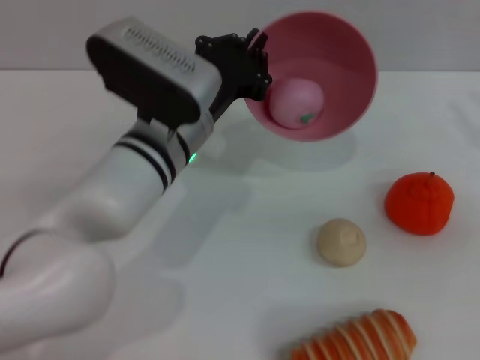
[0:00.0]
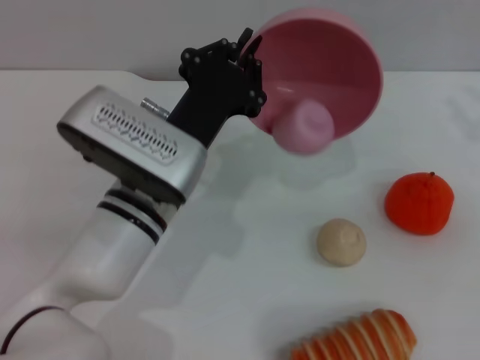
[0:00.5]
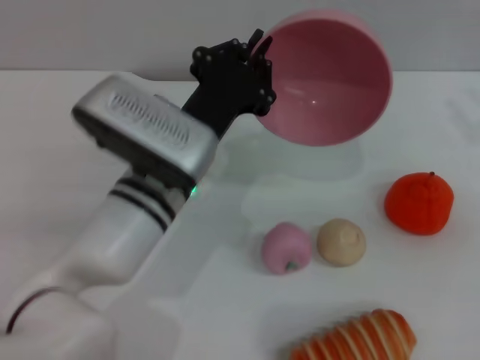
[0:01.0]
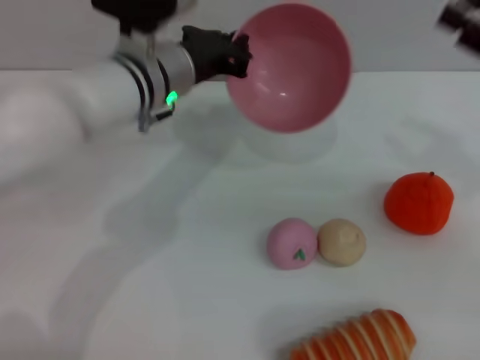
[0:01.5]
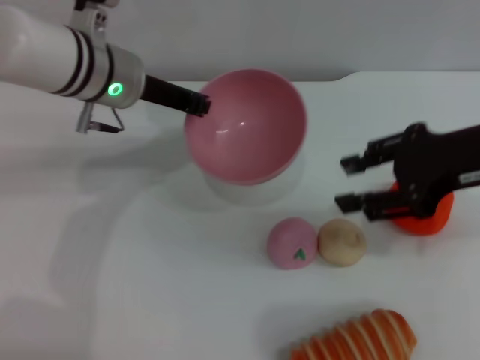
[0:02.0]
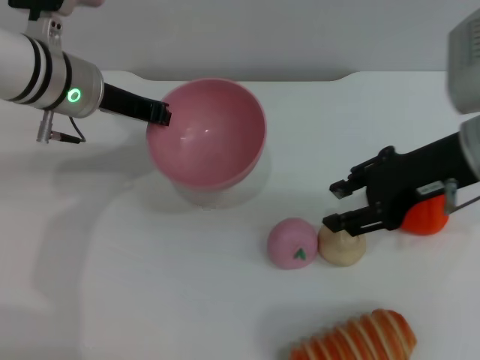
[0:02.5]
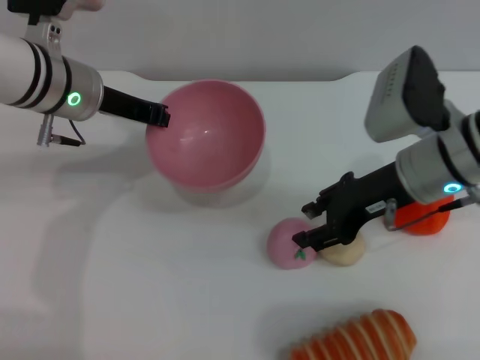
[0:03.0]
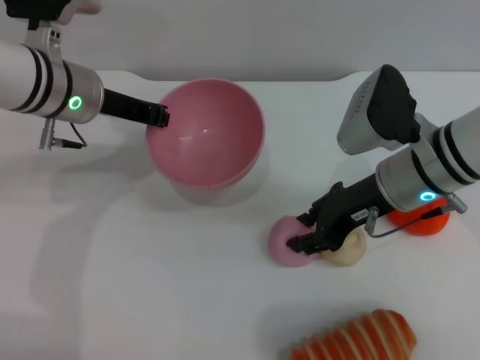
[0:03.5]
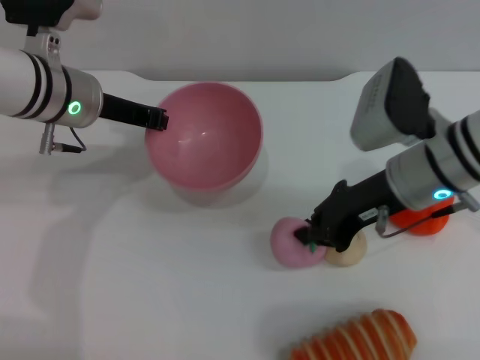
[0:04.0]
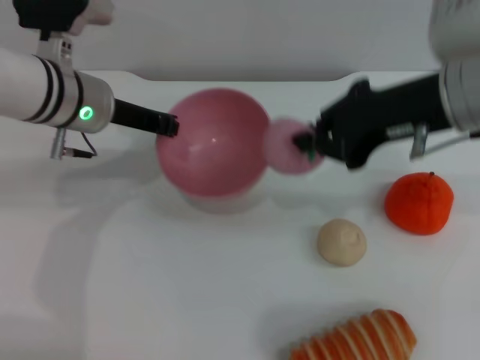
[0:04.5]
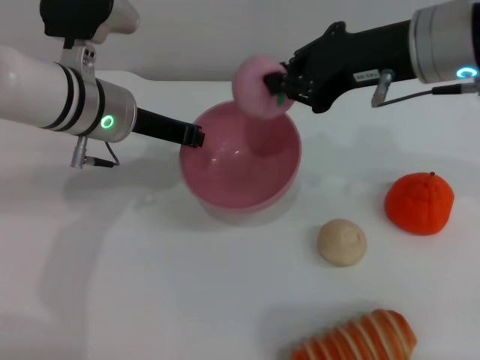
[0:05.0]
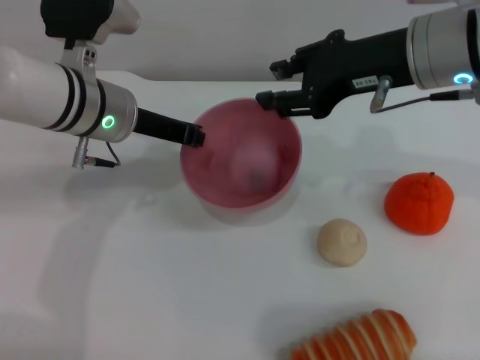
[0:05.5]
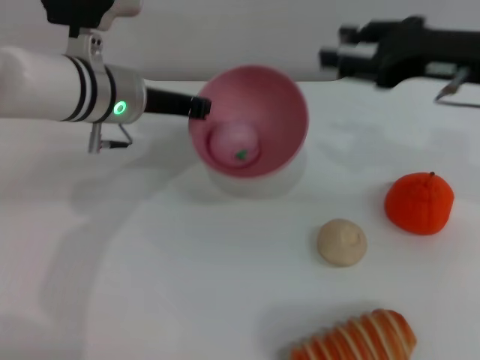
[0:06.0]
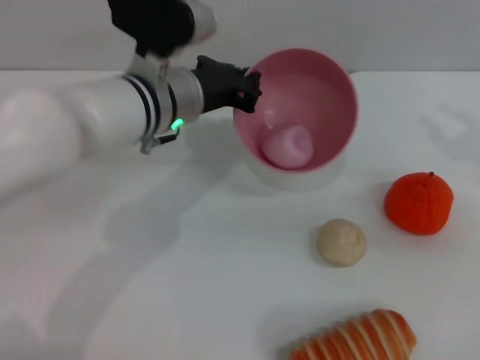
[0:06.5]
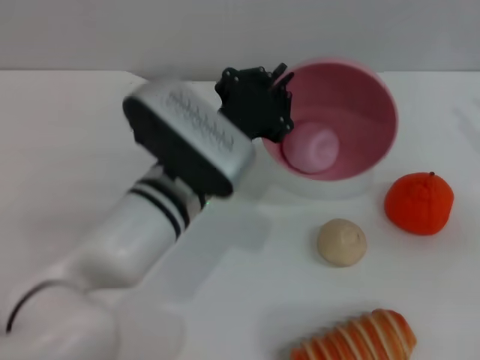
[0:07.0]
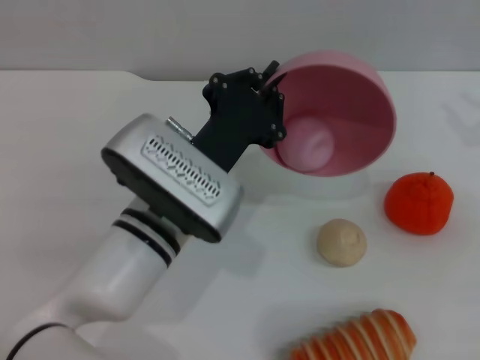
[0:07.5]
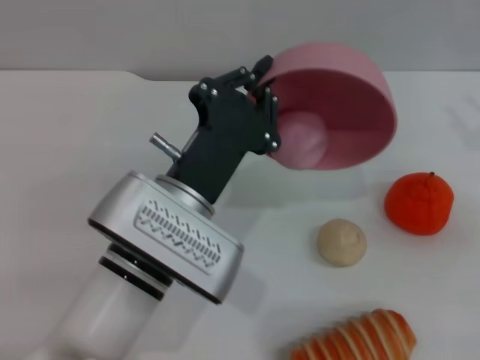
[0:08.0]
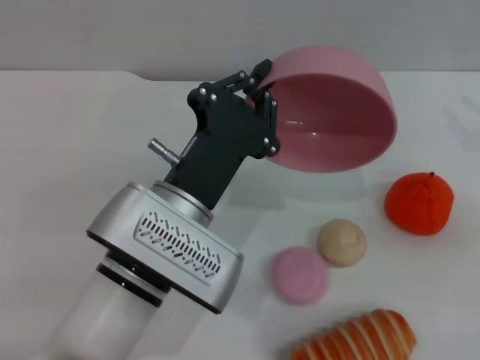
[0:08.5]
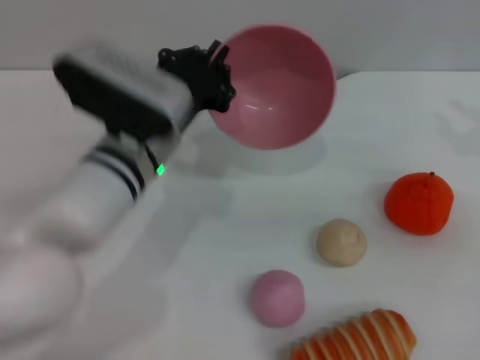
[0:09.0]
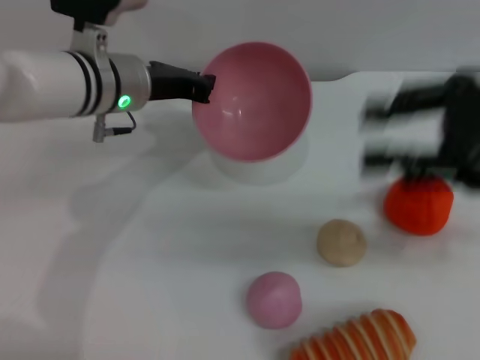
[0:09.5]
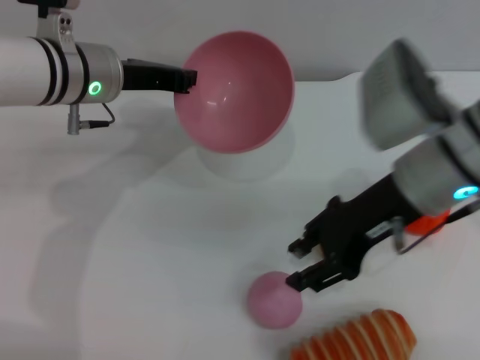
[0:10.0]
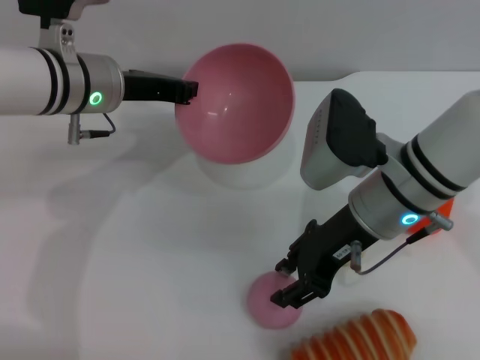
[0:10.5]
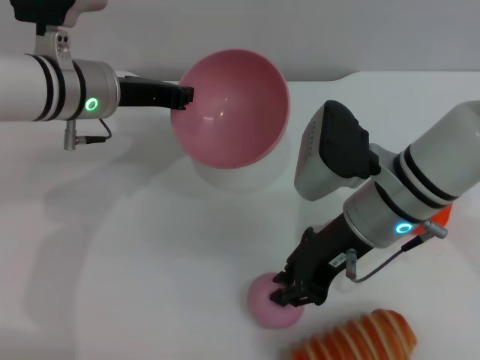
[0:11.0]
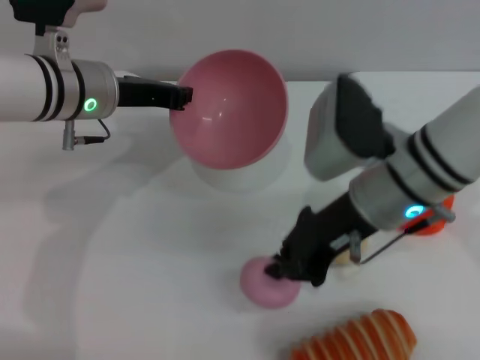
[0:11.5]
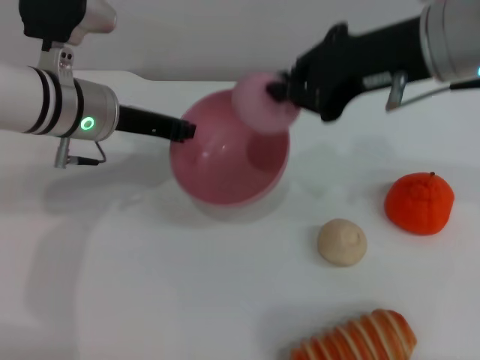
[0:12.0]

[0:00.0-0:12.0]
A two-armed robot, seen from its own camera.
Task of the whole recording: put the peach into the pink bowl and pour it out repeatedly.
Step, 0:01.0 to 0:04.0: Pick up the peach with the right gripper.
Step, 0:04.5 to 0:05.5: Place the peach into the bowl.
Step, 0:06.0 to 0:08.5: Pour the peach out of bowl.
Step, 0:09.0 to 0:11.5: Pick up the peach with the right gripper.
0:00.0 to 0:02.0: The right gripper heads to the left, covering approximately 10 cm, while the left gripper is displaced forward, to the left and upward by approximately 10 cm.
0:02.0 to 0:04.0: The right gripper is displaced downward and to the left by about 10 cm, and closes up.
0:04.0 to 0:06.0: The right gripper shifts roughly 10 cm upward and to the right, and opens.
0:06.0 to 0:08.0: The left gripper moves backward and to the right, approximately 15 cm; the right gripper travels to the right by some 15 cm.
0:08.0 to 0:10.0: The left gripper shifts about 20 cm forward and to the left; the right gripper travels to the left by roughly 20 cm.
0:10.0 to 0:12.0: The right gripper is displaced upward by approximately 10 cm, and closes its fingers.

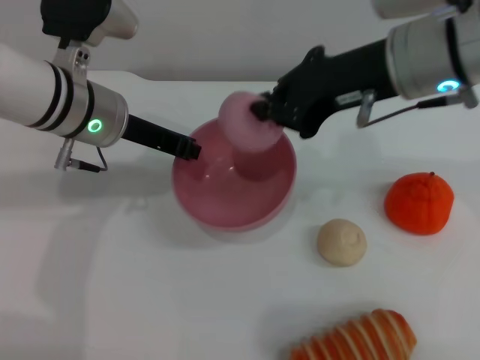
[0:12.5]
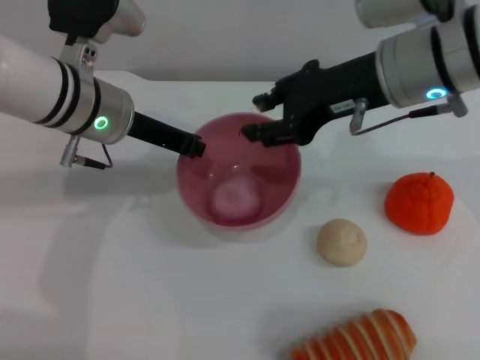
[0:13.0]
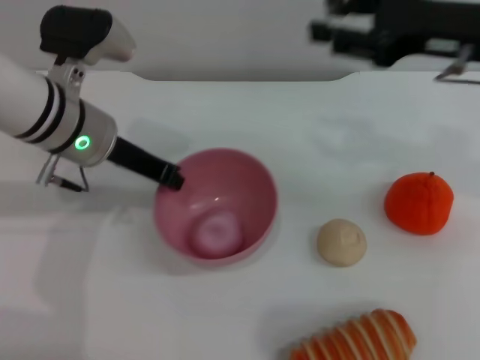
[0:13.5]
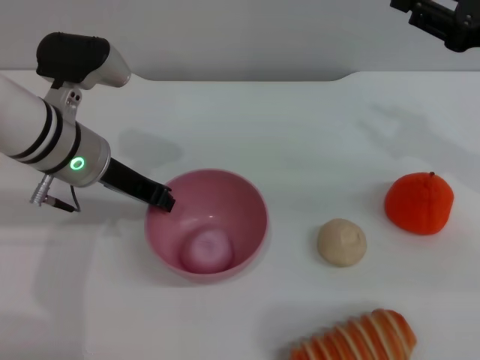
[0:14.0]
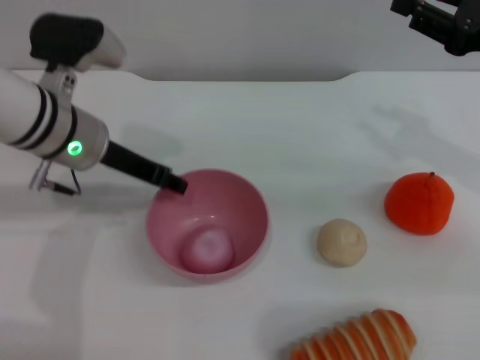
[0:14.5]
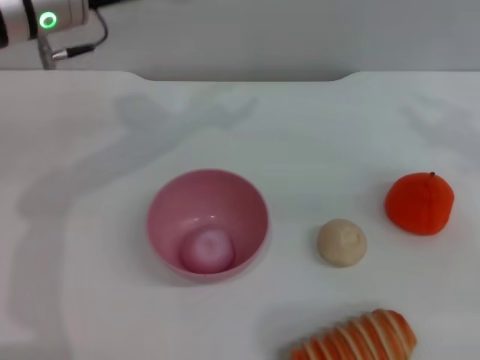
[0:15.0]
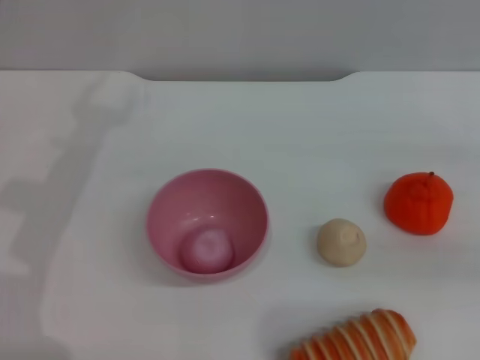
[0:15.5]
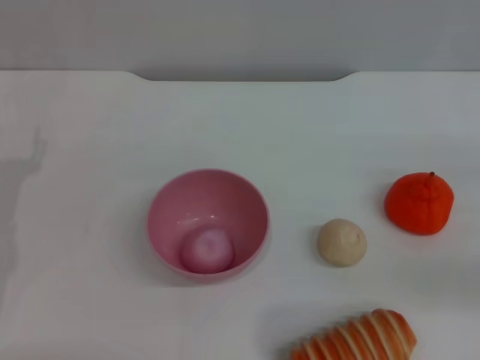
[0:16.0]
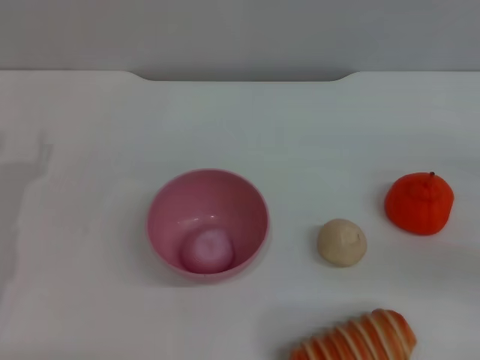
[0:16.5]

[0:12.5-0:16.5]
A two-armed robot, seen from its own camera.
Task of the whole recording: put the peach into the pink bowl and pour it out repeatedly.
Step, 0:13.5 to 0:14.5: Place the bowl on the table.
0:12.5 to 0:14.5: The left gripper opens up. The right gripper heads to the right, covering some 15 cm, and opens.
0:14.5 to 0:16.5: The right gripper travels to the right, downward and backward by roughly 15 cm. Meanwhile the left gripper goes about 20 cm to the left, backward and downward, and opens.
